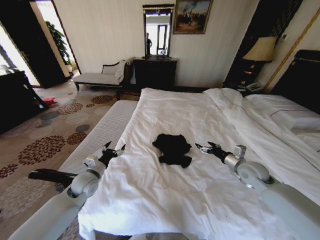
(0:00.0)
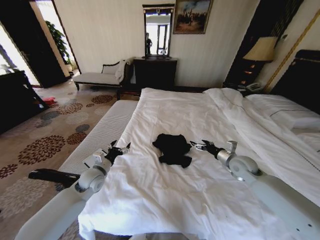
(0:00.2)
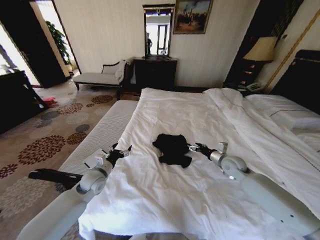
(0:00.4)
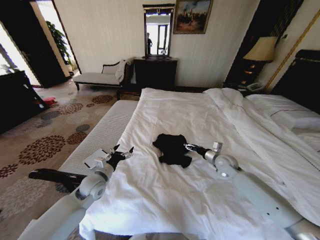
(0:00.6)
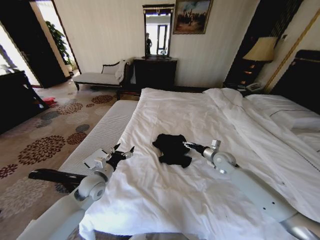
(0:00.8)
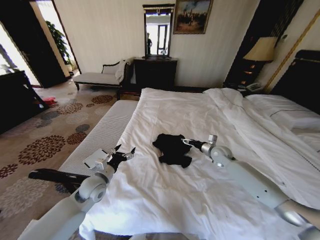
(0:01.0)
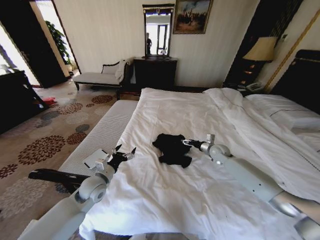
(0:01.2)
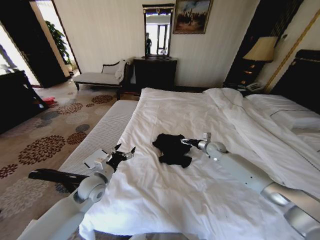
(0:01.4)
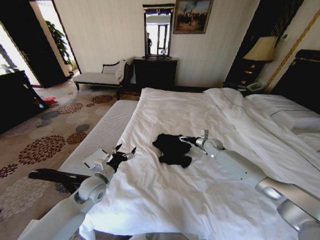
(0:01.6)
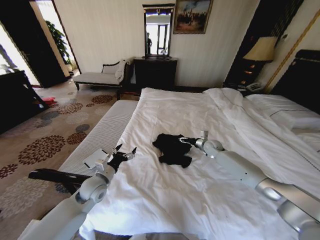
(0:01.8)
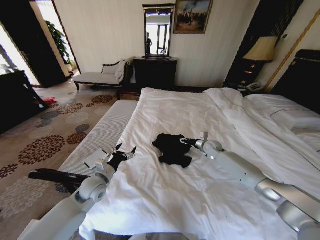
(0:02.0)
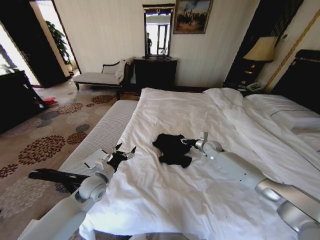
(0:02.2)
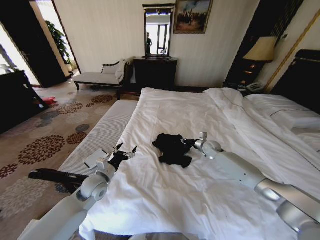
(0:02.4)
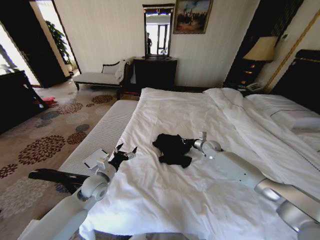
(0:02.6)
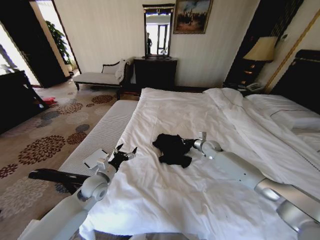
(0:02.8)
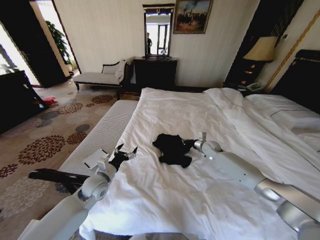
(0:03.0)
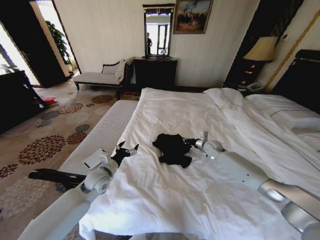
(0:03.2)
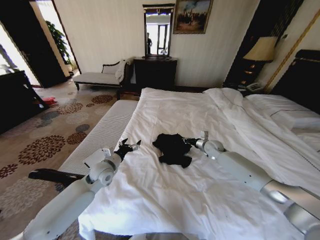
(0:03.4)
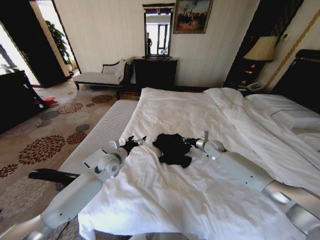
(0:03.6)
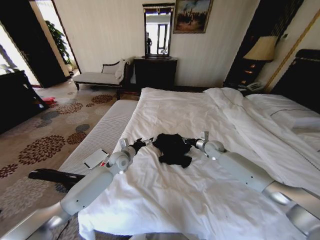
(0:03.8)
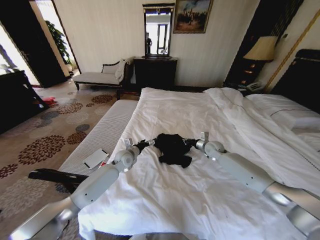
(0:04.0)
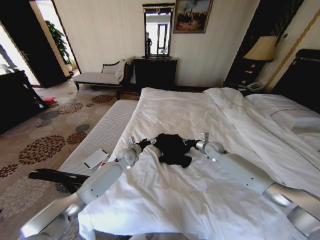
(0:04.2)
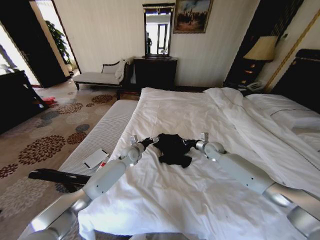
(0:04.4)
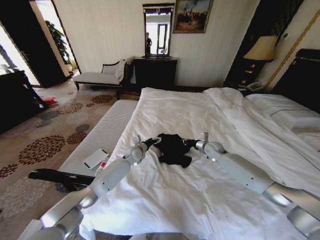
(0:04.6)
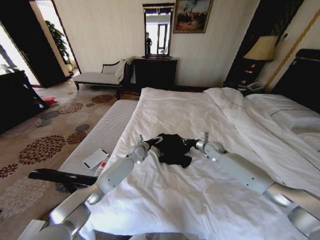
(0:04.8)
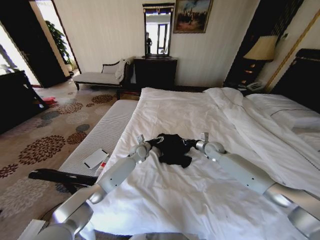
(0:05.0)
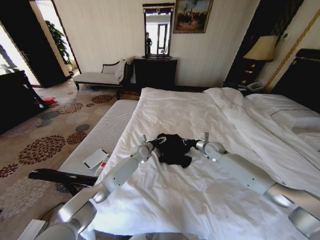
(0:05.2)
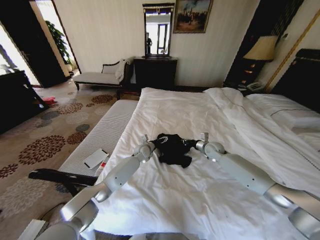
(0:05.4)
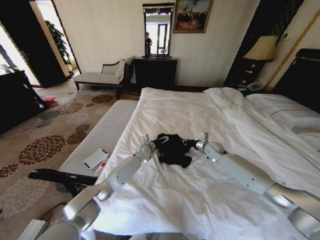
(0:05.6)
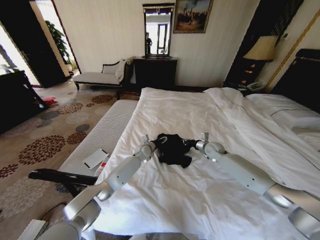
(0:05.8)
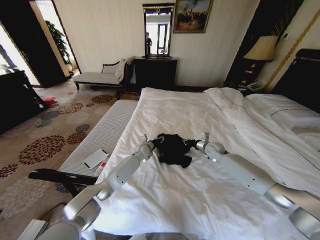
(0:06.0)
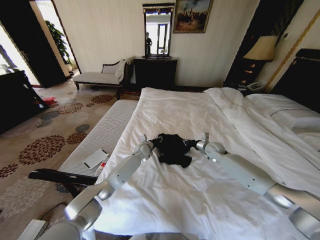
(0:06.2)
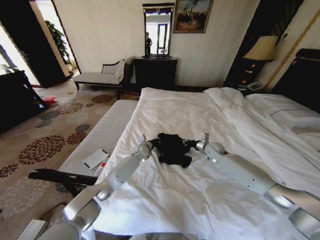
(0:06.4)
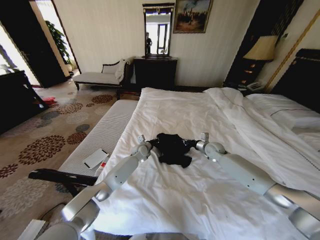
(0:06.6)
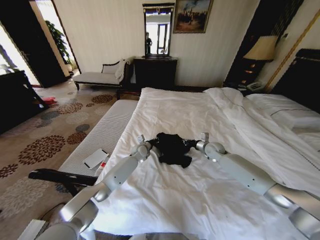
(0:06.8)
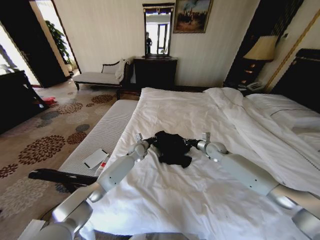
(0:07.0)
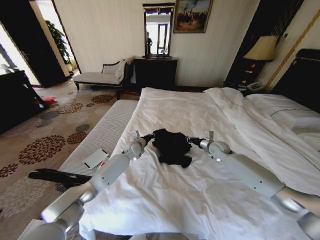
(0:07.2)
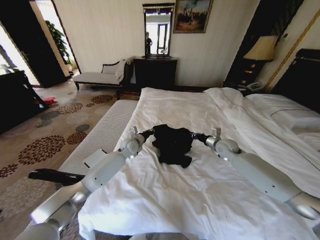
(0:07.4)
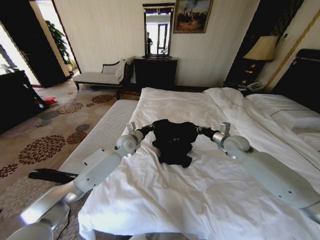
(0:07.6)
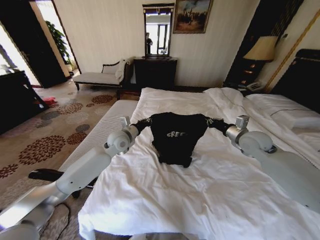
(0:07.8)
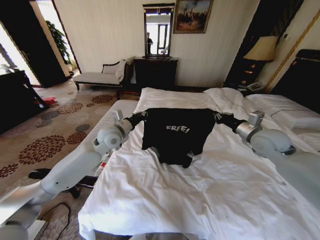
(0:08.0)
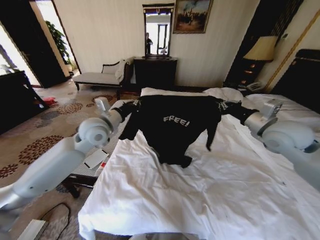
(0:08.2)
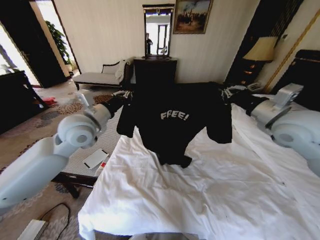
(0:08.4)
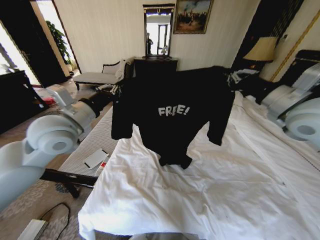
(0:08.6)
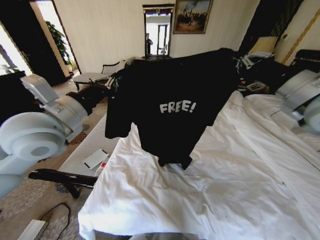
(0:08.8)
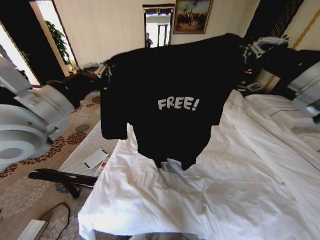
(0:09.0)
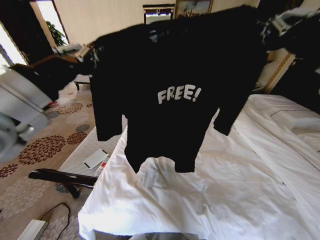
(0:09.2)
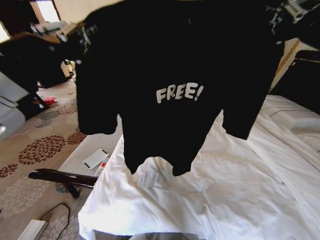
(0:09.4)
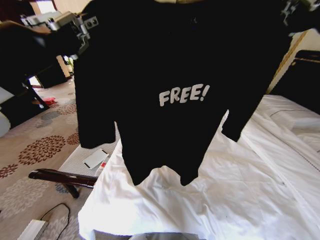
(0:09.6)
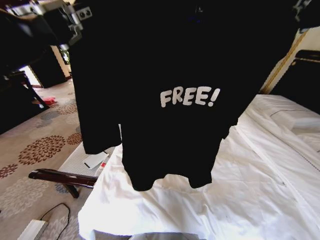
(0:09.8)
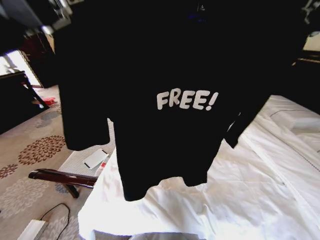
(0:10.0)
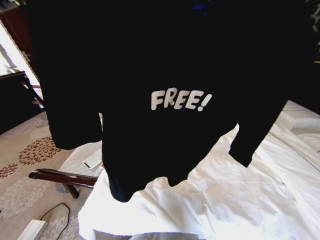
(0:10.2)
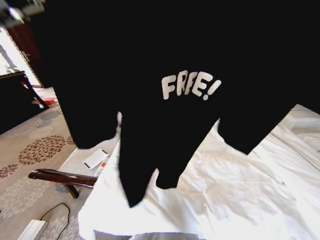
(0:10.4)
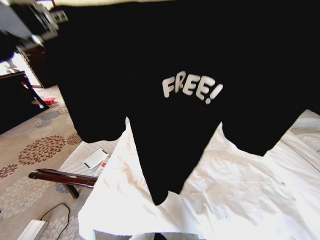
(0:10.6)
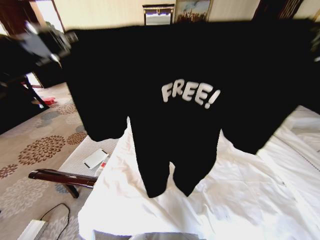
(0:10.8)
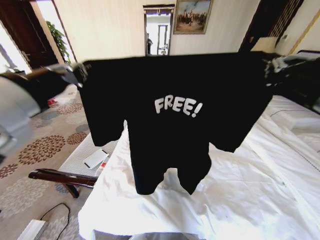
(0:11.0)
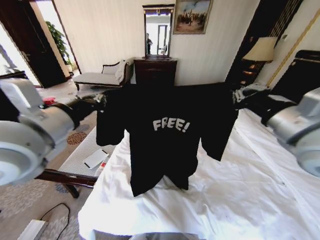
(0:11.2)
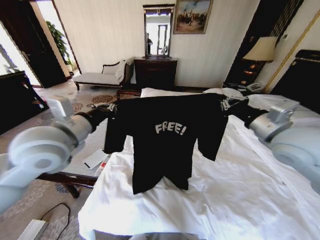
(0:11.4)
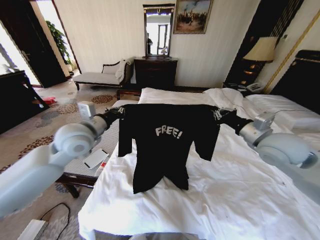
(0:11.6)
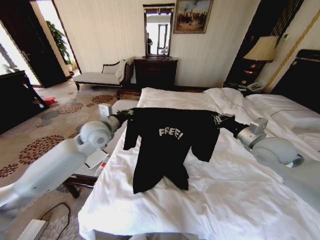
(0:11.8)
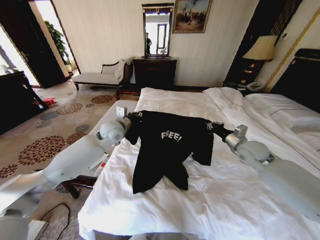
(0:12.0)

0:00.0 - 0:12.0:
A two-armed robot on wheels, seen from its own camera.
Task of the whole recording: Fold the clothes on the bed.
0:00.0 - 0:01.6: The right gripper moves forward, roughly 20 cm.
0:01.6 - 0:03.0: The right gripper closes its fingers.
0:03.0 - 0:04.4: The left gripper moves forward and to the right, some 20 cm.
0:04.4 - 0:06.0: The left gripper moves to the right, some 5 cm, and closes.
0:06.0 - 0:07.6: The right gripper shifts some 10 cm upward; the left gripper goes about 15 cm upward and to the left, and closes its fingers.
0:07.6 - 0:09.0: The left gripper goes roughly 35 cm upward, backward and to the left, while the right gripper travels upward and backward by approximately 35 cm.
0:09.0 - 0:10.4: The right gripper shifts roughly 15 cm backward; the left gripper is displaced backward and upward by some 15 cm.
0:10.4 - 0:12.0: The right gripper heads downward and forward, covering about 40 cm, while the left gripper goes approximately 40 cm forward and downward.

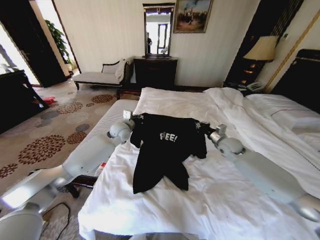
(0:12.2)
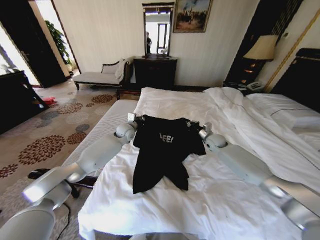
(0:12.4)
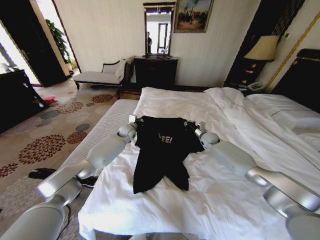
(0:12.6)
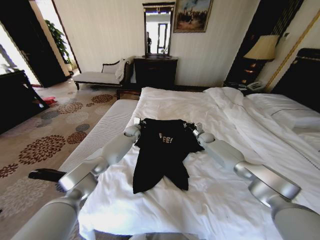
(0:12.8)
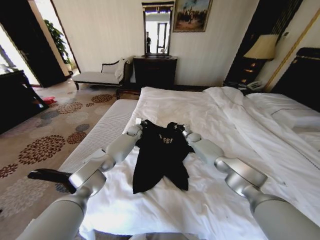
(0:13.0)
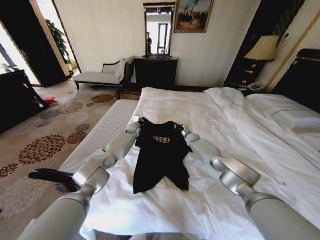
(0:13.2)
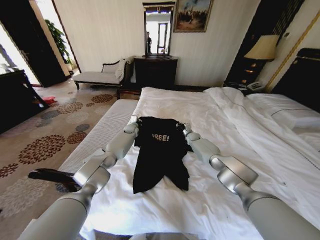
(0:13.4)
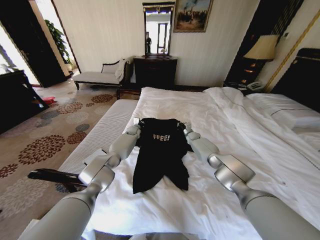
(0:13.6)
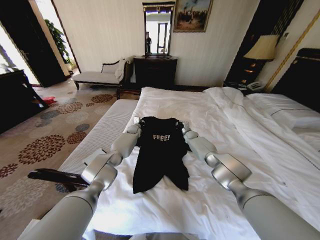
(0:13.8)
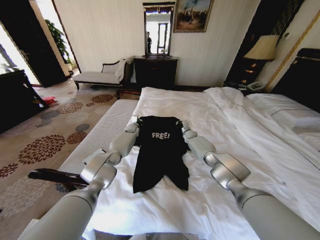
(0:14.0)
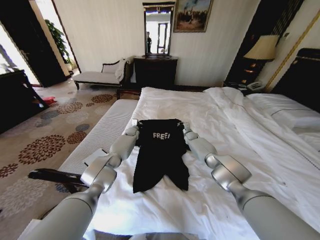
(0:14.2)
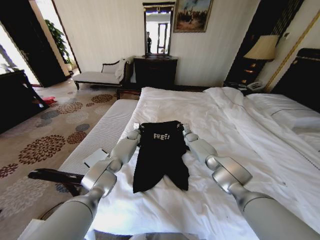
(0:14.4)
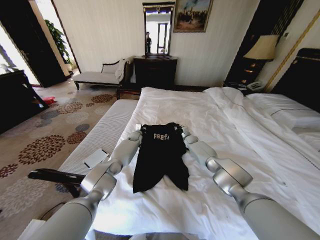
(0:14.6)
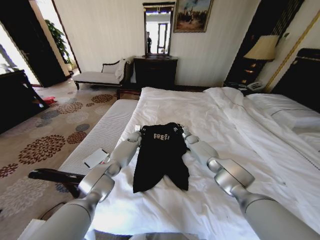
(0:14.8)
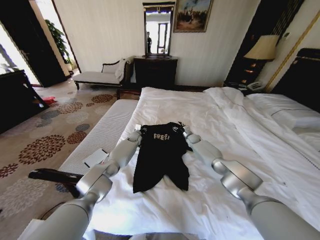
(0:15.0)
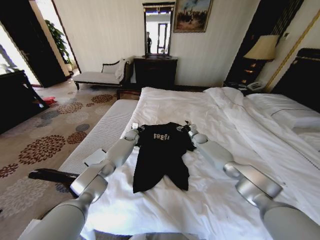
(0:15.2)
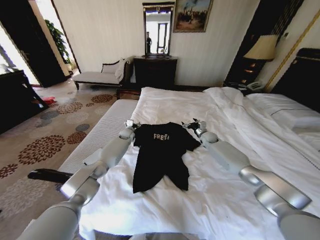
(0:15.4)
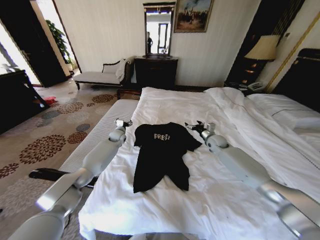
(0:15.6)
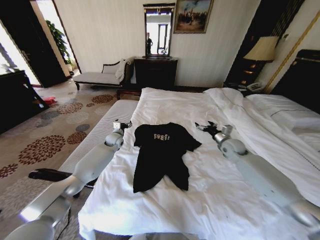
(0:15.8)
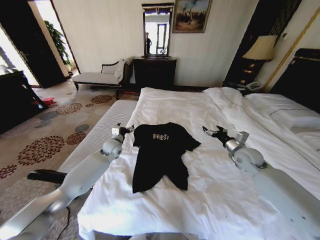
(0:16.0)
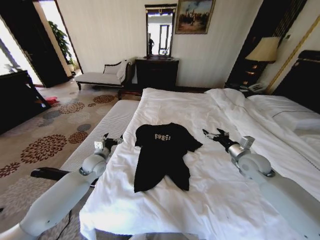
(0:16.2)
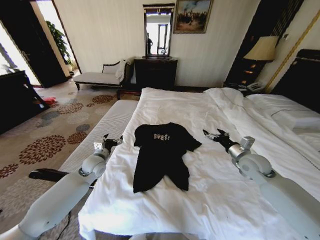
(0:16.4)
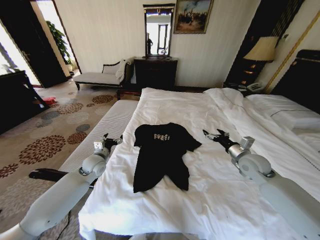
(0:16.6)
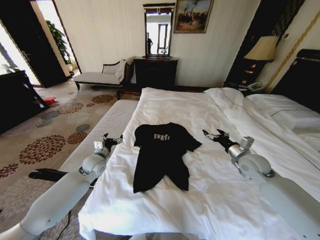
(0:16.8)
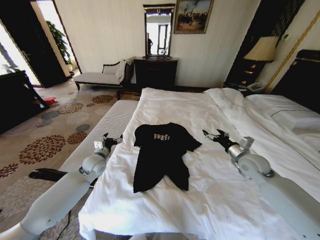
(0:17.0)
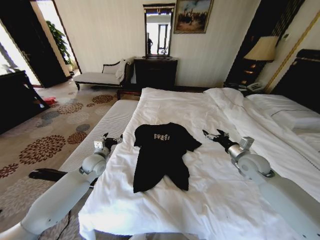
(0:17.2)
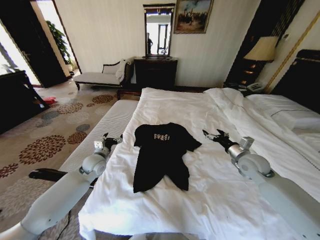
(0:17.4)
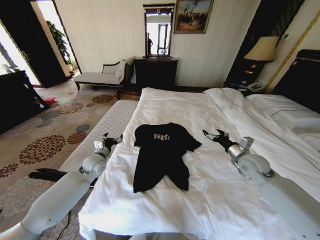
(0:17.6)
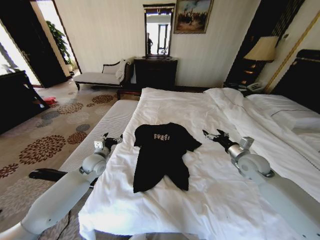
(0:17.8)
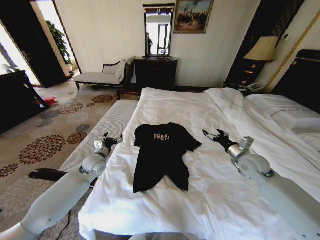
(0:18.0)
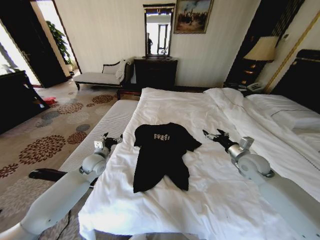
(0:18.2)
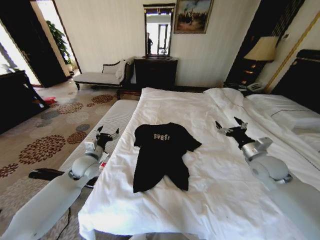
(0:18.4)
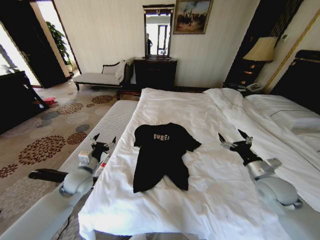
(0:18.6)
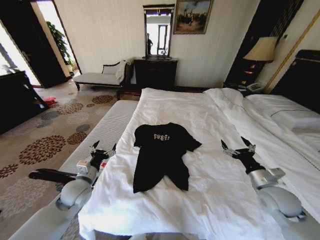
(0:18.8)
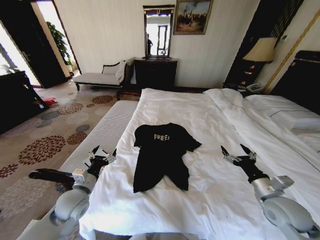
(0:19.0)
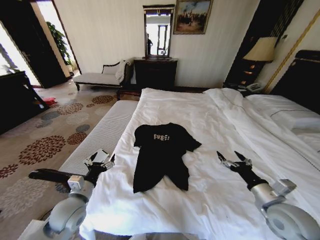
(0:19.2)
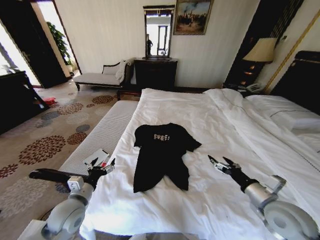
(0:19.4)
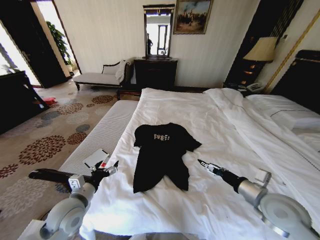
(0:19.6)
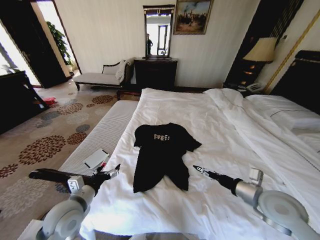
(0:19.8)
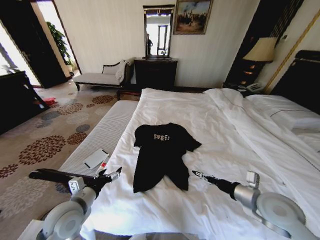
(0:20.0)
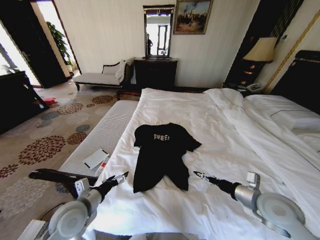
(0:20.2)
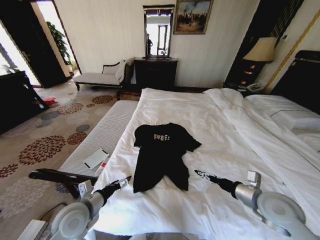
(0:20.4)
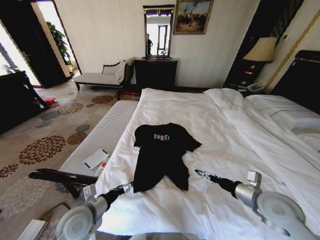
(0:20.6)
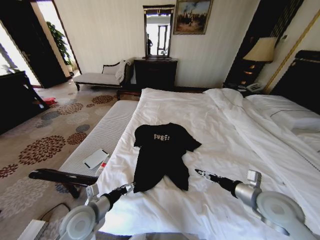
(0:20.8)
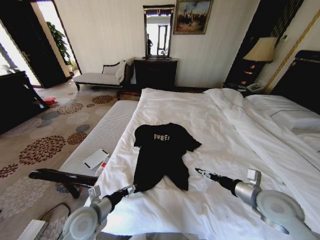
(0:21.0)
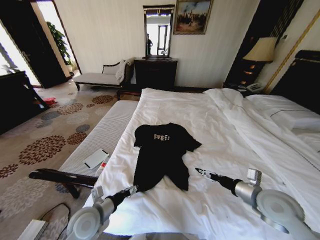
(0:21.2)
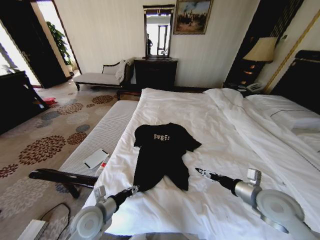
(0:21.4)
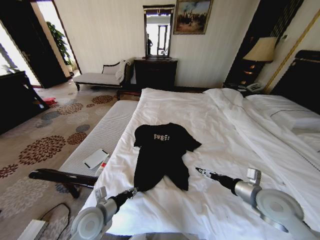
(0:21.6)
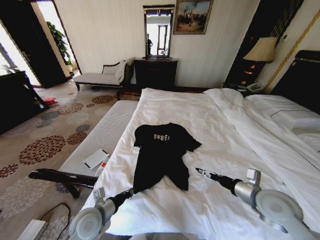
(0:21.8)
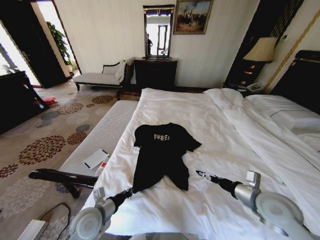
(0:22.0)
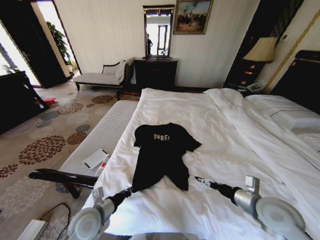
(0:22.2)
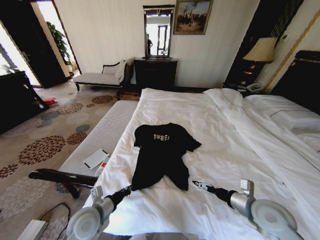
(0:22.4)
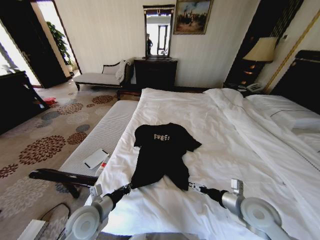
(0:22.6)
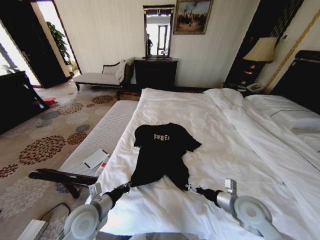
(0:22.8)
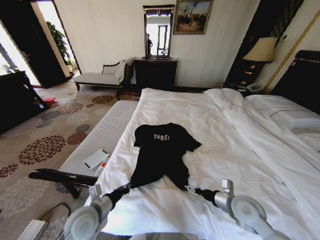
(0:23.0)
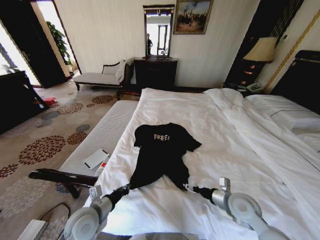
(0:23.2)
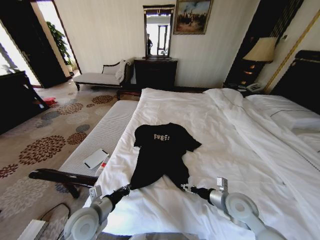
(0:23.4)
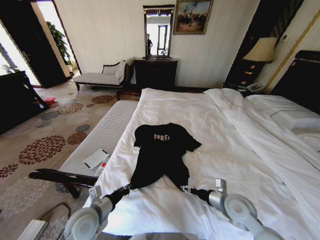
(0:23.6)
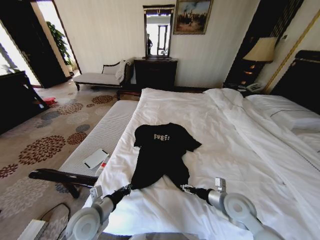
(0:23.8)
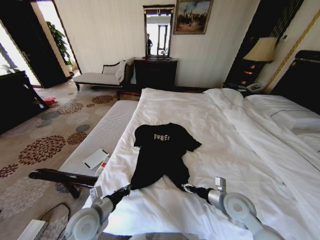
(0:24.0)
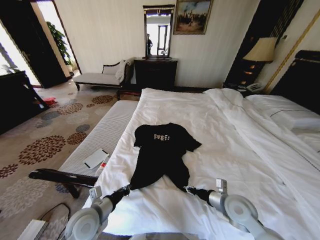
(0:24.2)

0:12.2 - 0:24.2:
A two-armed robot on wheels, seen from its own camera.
Task of the whole recording: Fold the clothes on the bed.
0:12.2 - 0:13.8: The left gripper heads forward and downward, covering about 20 cm. Meanwhile the right gripper is displaced forward, downward and to the left by about 25 cm.
0:13.8 - 0:15.2: The left gripper opens up. Meanwhile the right gripper moves about 5 cm, and opens.
0:15.2 - 0:16.6: The left gripper goes about 30 cm backward and to the left; the right gripper shifts roughly 30 cm backward and upward.
0:16.6 - 0:18.2: Both grippers stay about where they are.
0:18.2 - 0:19.8: Both grippers travel together backward, about 20 cm.
0:19.8 - 0:21.2: The left gripper moves about 5 cm.
0:21.2 - 0:22.6: The right gripper shifts by about 5 cm; the left gripper closes its fingers.
0:22.6 - 0:24.2: The right gripper closes its fingers.
